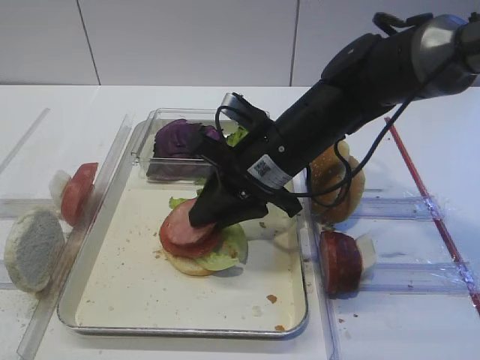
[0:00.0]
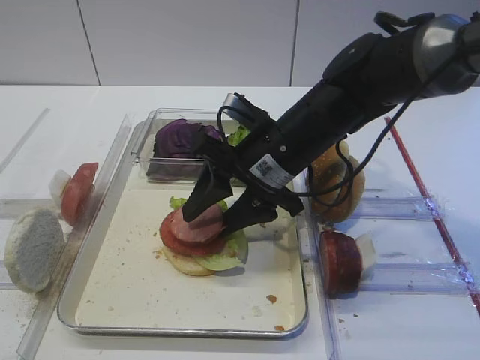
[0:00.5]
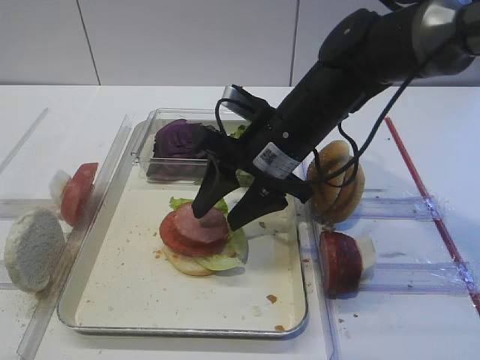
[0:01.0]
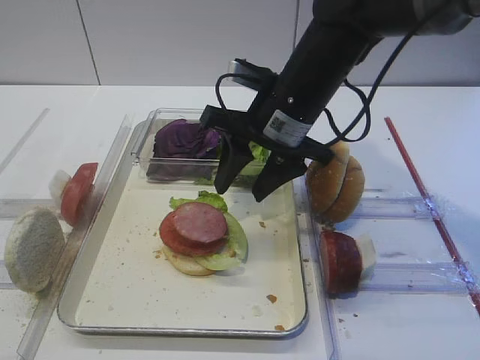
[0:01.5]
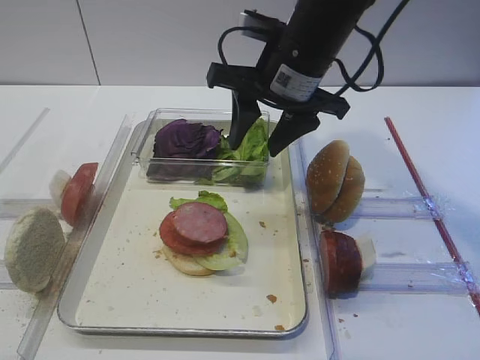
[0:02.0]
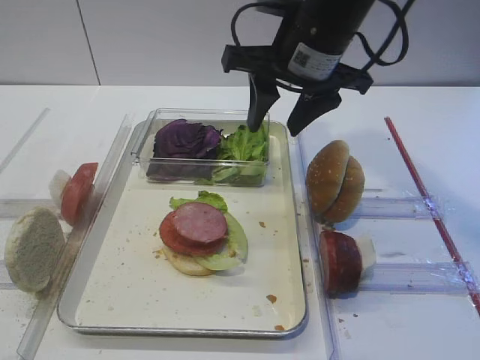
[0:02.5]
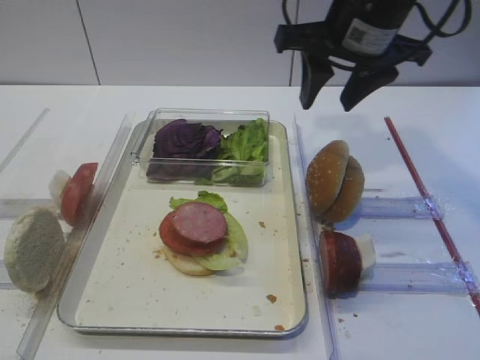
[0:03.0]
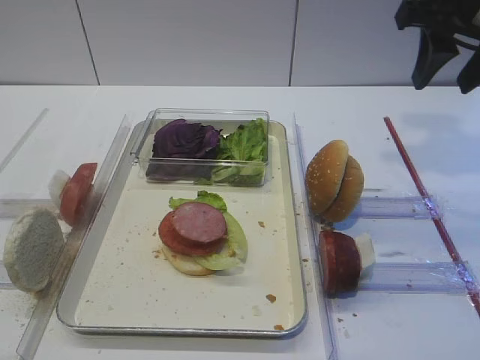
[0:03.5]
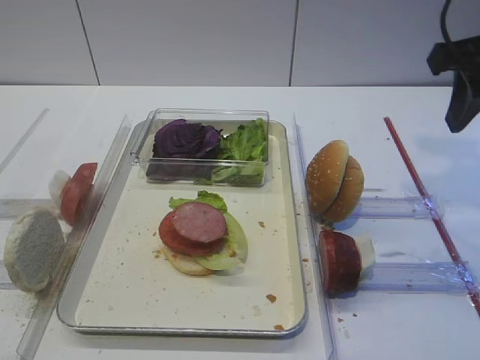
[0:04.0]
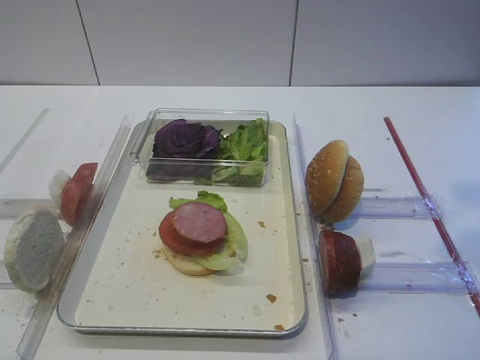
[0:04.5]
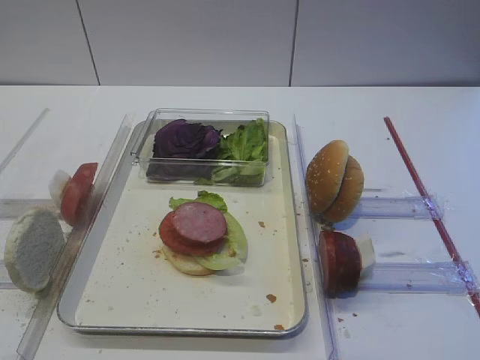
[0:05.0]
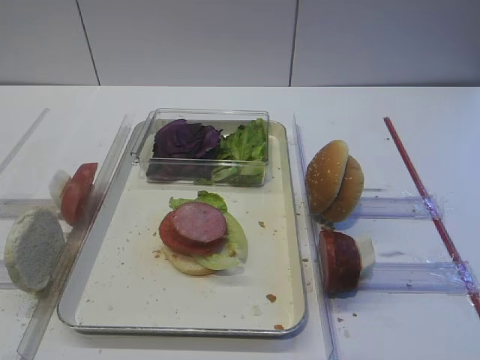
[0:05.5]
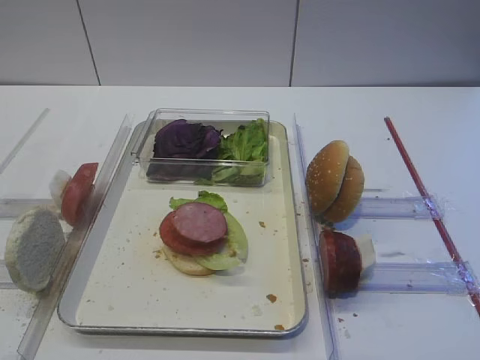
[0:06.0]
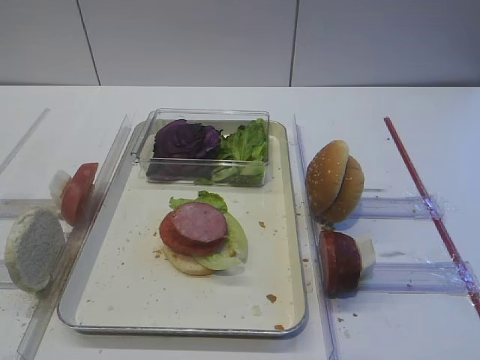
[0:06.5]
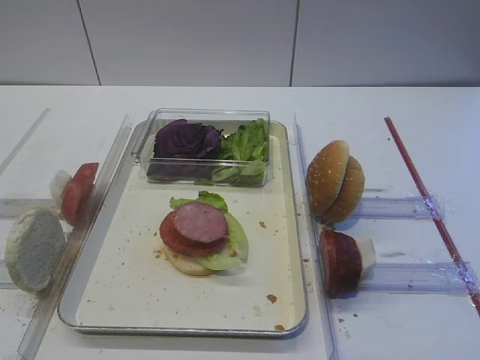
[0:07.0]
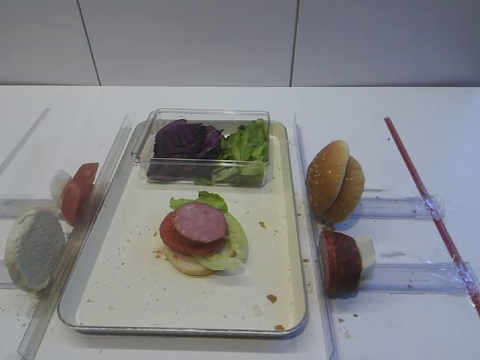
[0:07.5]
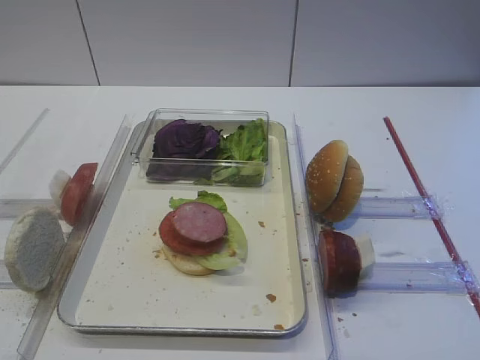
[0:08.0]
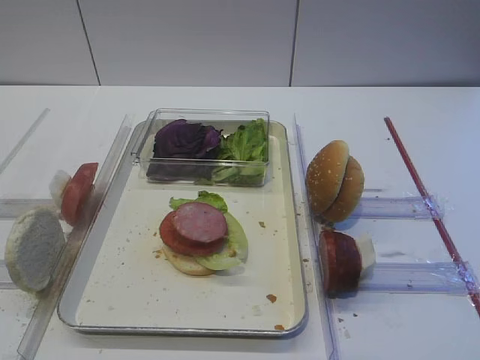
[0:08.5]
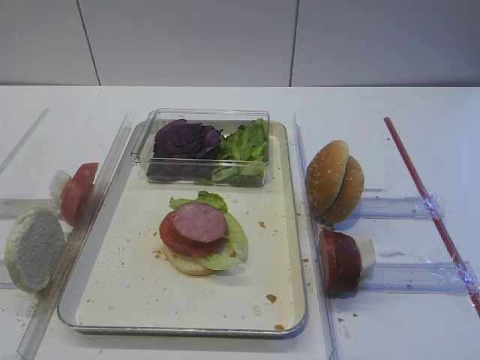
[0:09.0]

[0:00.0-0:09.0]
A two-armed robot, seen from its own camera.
0:00.0 to 0:02.0: The right gripper goes roughly 10 cm upward, and opens up.
0:02.0 to 0:04.5: The right gripper moves to the right and backward, approximately 25 cm.

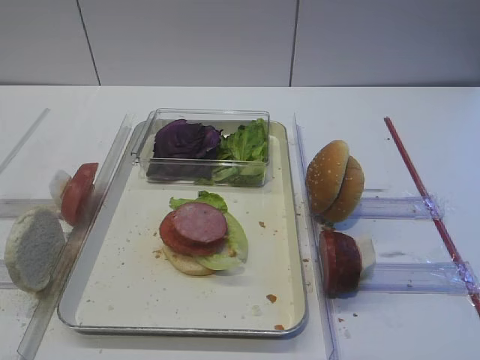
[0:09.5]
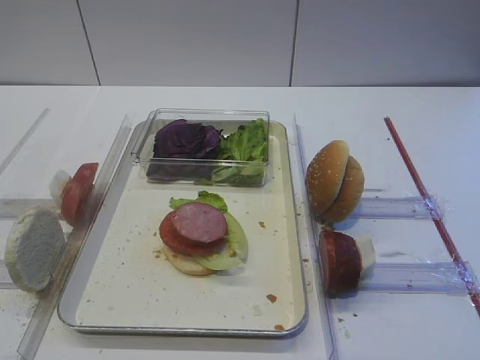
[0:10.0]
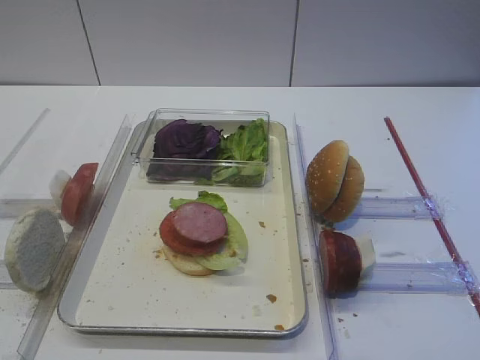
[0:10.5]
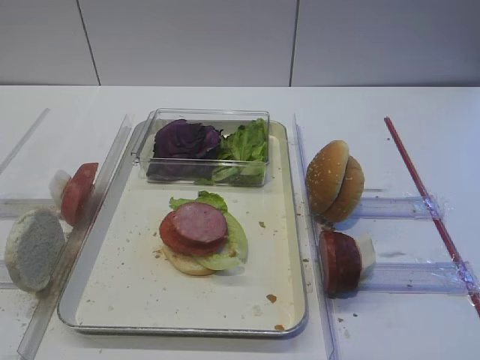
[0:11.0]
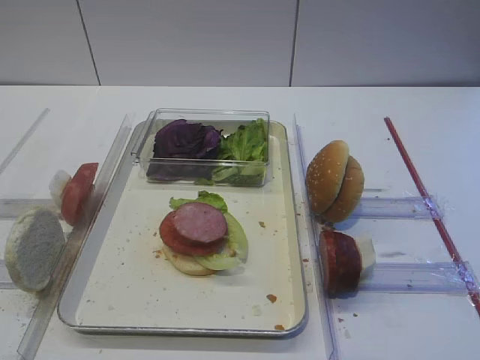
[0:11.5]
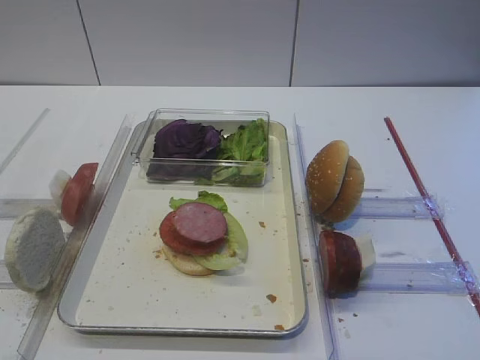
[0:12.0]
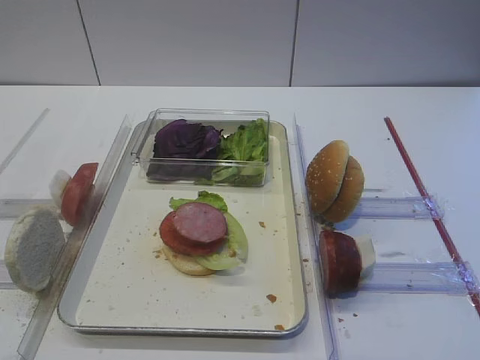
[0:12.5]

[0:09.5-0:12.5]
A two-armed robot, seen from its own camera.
0:09.5 to 0:12.5: Both grippers stay put.

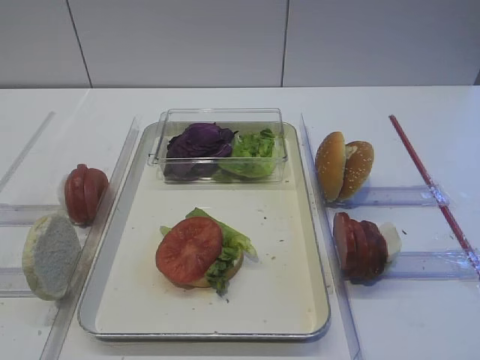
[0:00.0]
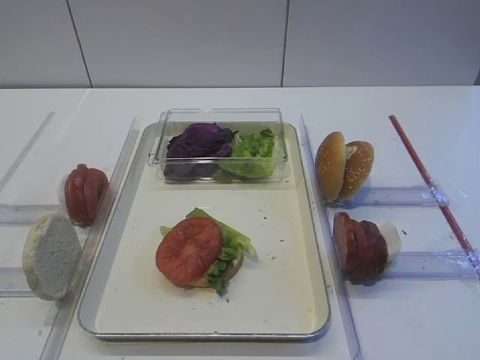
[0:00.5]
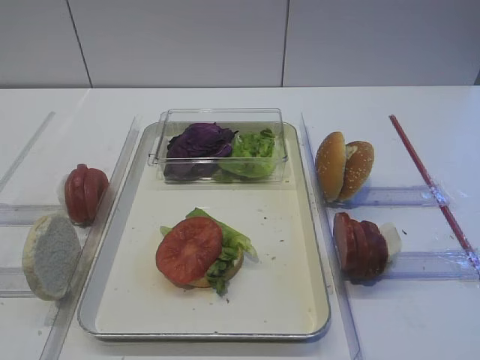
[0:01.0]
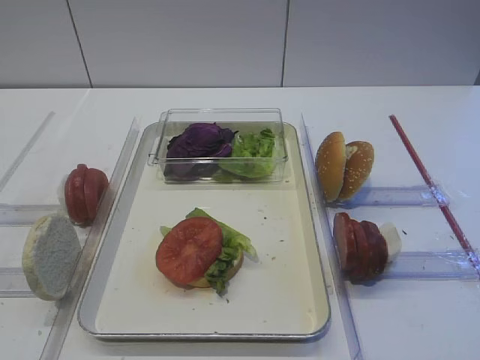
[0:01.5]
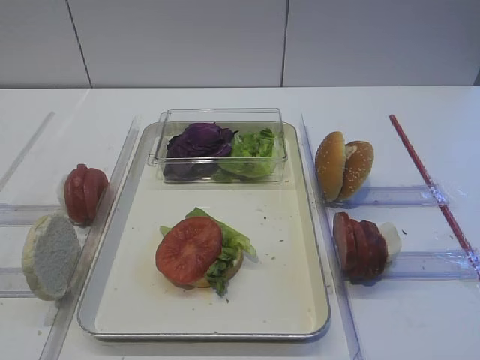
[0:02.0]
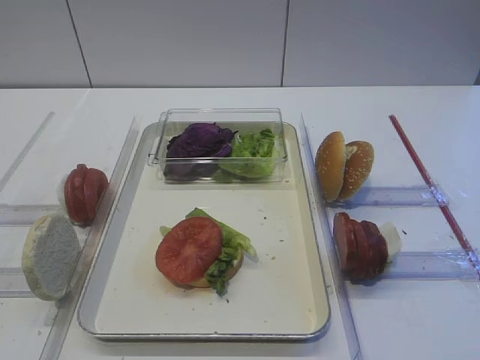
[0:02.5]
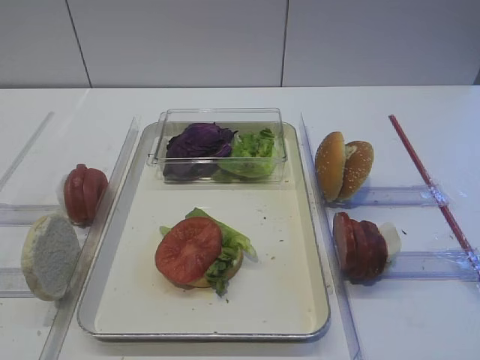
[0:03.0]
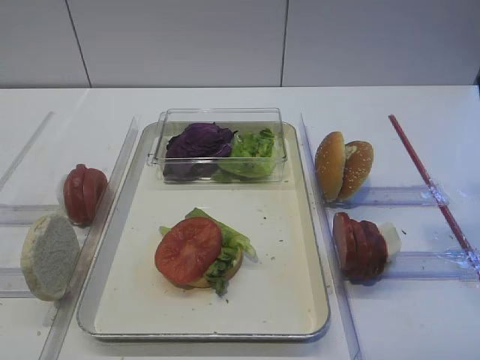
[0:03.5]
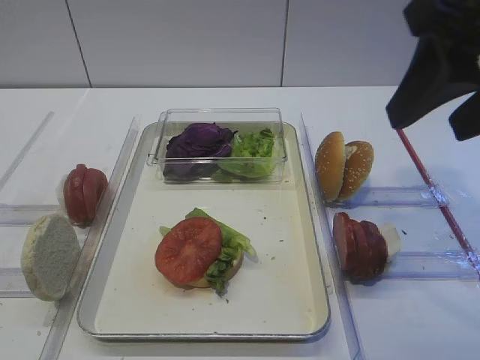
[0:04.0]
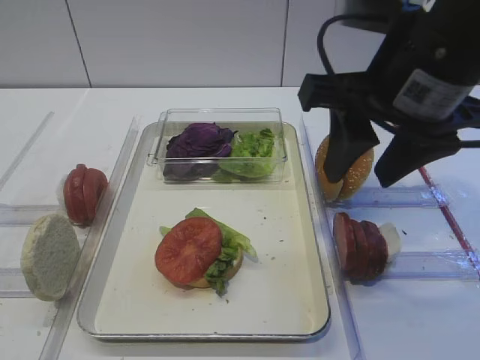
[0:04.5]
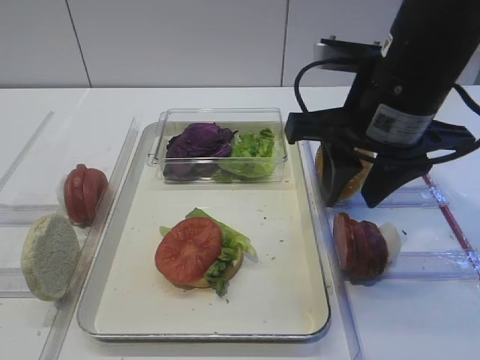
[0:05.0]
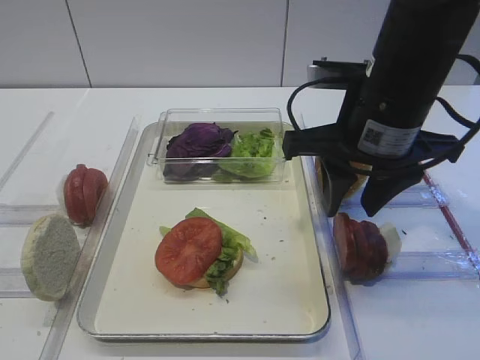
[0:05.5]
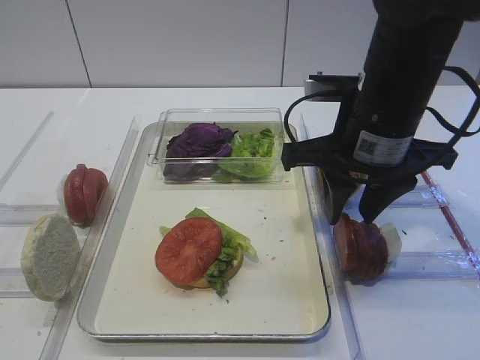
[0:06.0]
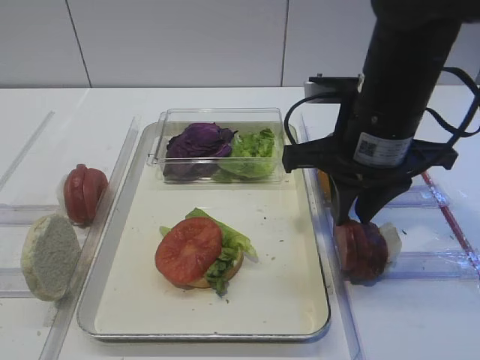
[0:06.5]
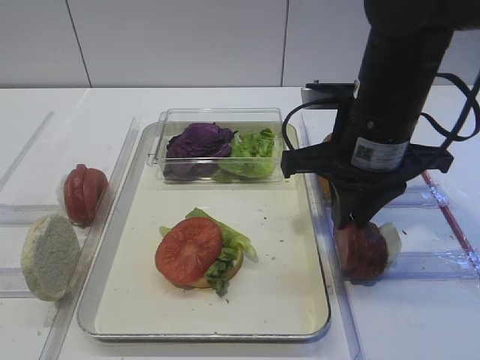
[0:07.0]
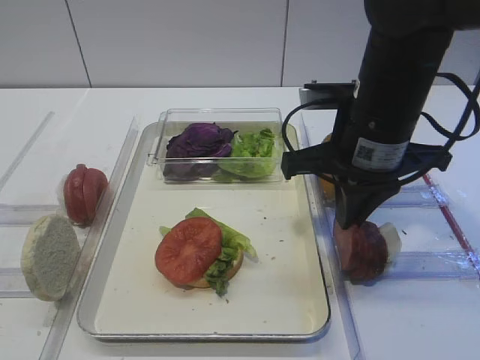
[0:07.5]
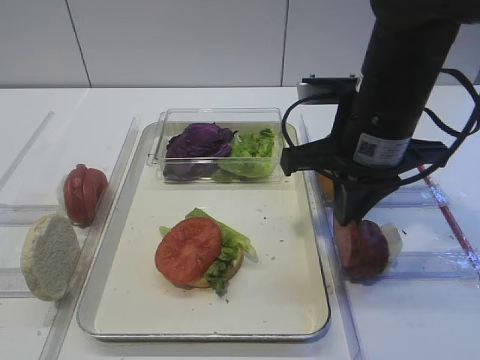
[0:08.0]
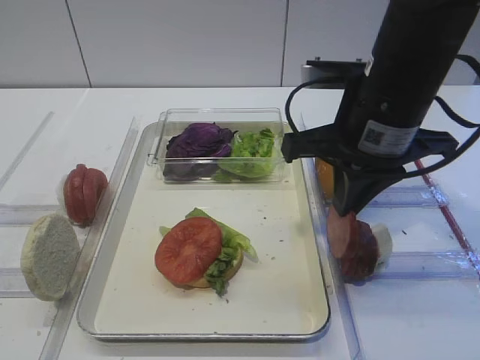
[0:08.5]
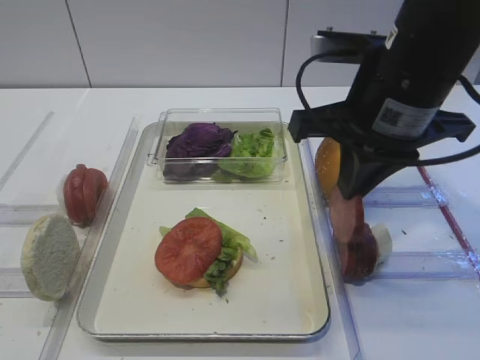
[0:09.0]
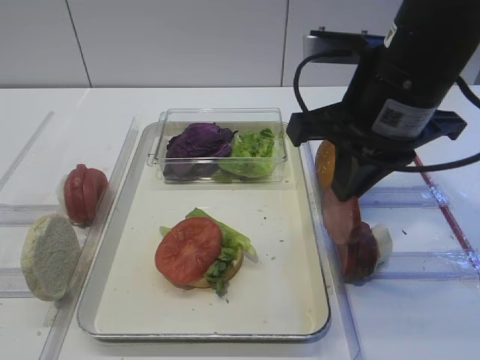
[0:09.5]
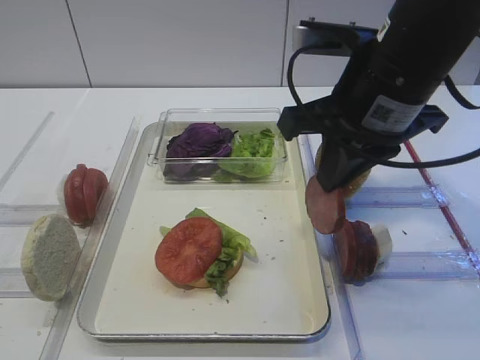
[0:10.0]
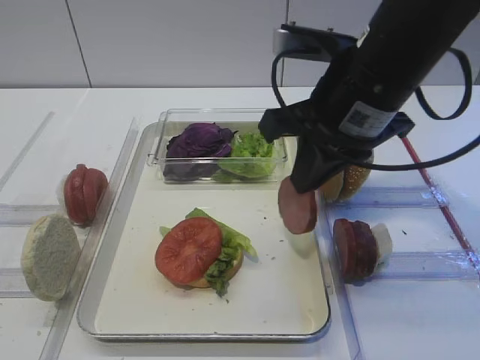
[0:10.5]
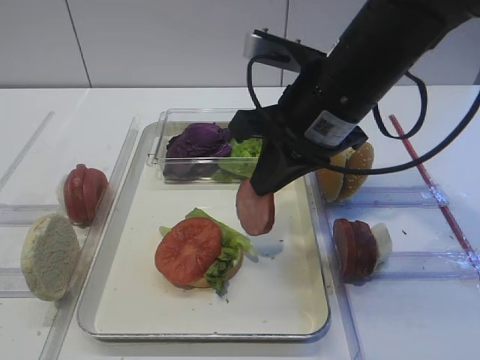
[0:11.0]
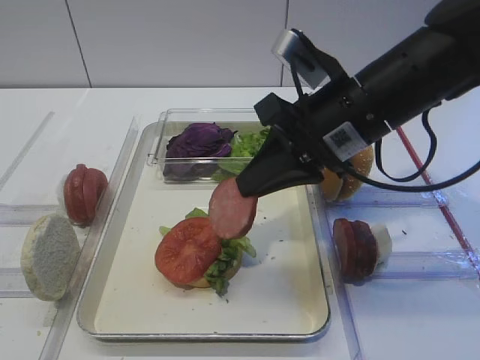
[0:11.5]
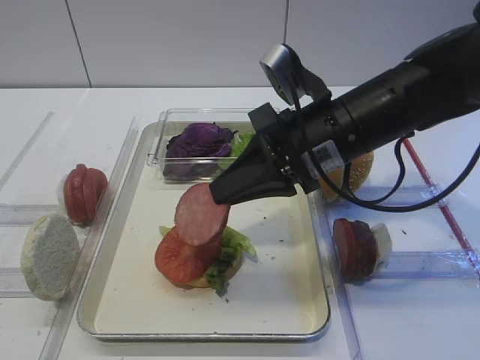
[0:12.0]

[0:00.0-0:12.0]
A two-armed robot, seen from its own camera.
Step, 0:00.0 to 0:09.0: Pick up the cutlet with the right gripper.
0:02.0 to 0:04.0: The right gripper heads forward and upward, covering roughly 20 cm.
0:04.0 to 0:06.0: The right gripper heads downward, forward and to the left, covering about 15 cm.
0:06.0 to 0:08.0: The right gripper closes its fingers.
0:08.0 to 0:10.0: The grippers move only a little.
0:10.0 to 0:12.0: The right gripper is displaced downward by approximately 5 cm.

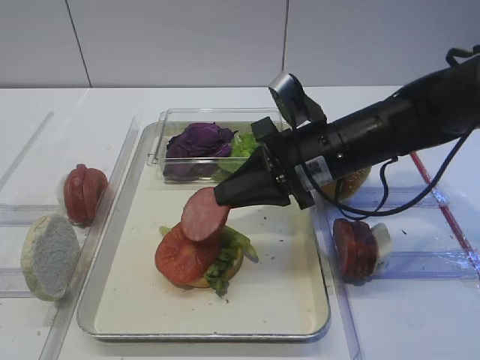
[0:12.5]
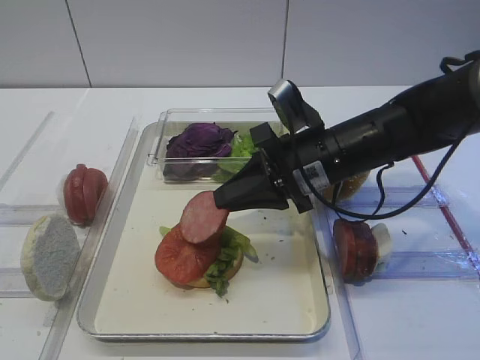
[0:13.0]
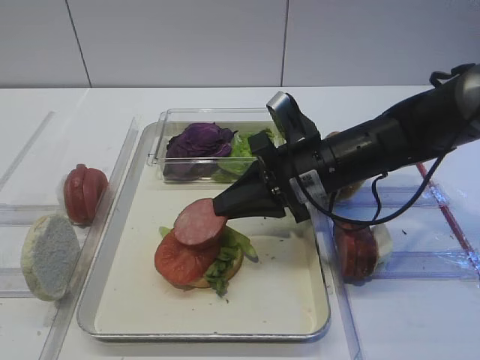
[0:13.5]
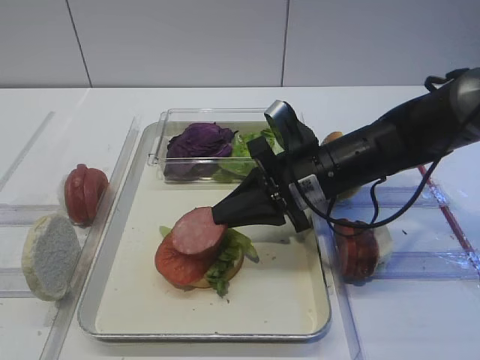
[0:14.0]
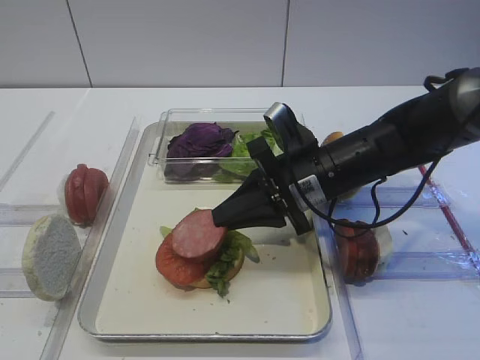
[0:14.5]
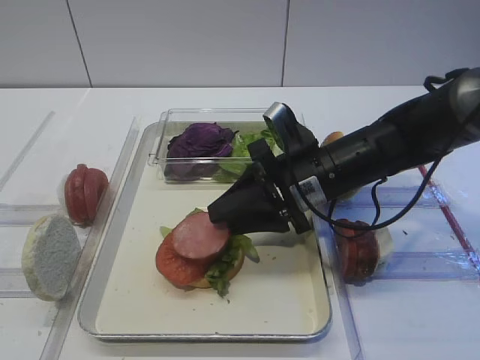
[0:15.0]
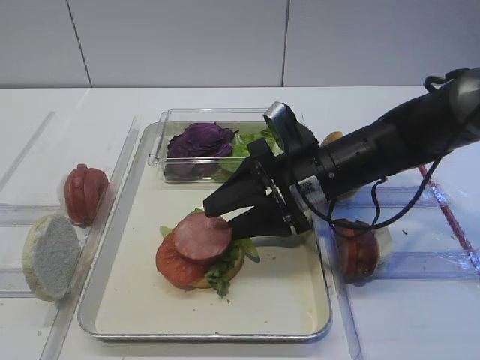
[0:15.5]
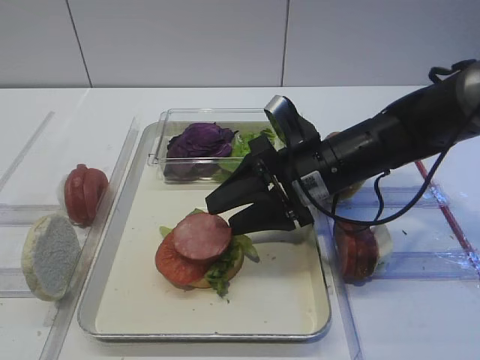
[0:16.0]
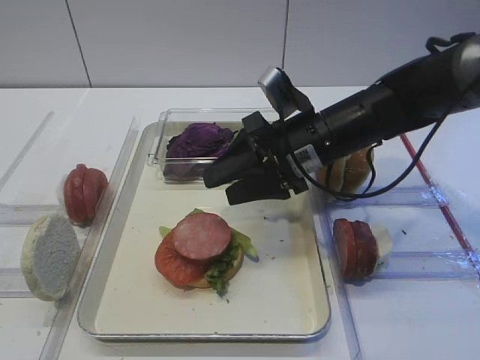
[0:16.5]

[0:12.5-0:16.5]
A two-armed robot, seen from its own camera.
0:12.5 to 0:14.5: The grippers move only a little.
0:14.5 to 0:16.5: The right gripper opens its fingers.
